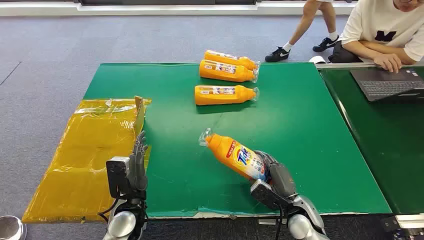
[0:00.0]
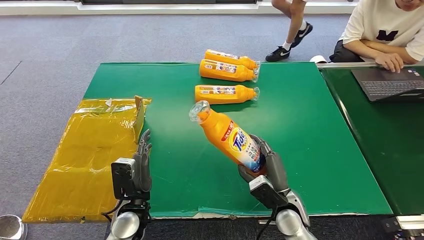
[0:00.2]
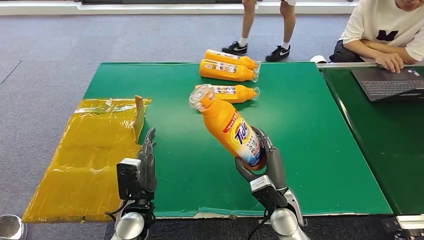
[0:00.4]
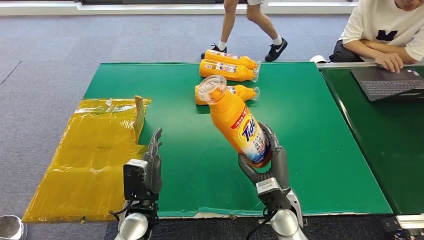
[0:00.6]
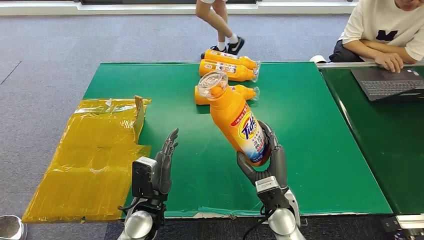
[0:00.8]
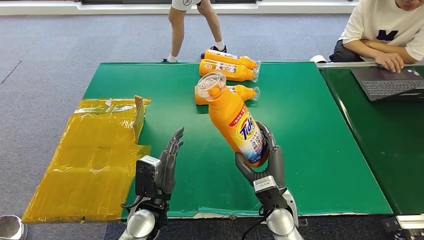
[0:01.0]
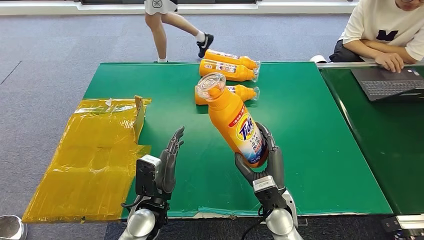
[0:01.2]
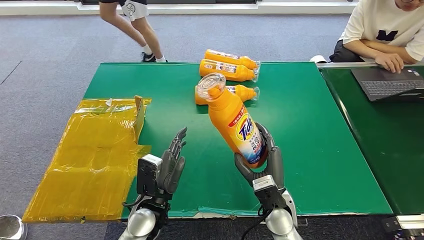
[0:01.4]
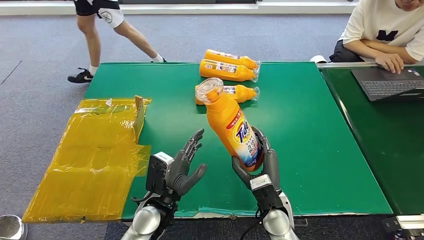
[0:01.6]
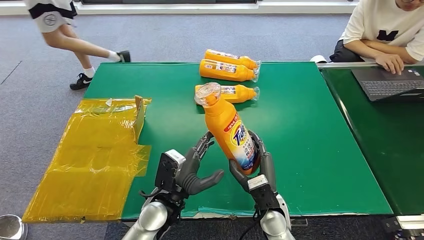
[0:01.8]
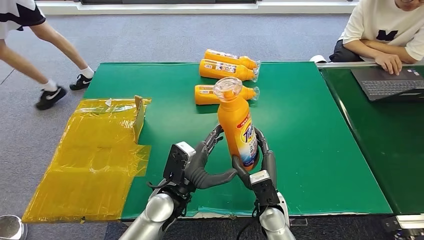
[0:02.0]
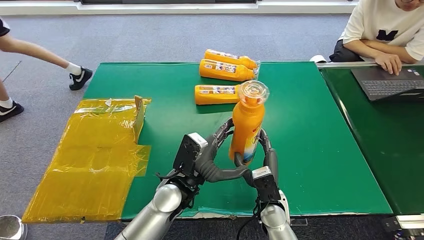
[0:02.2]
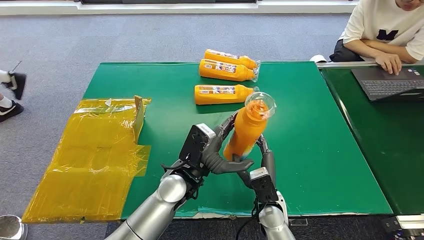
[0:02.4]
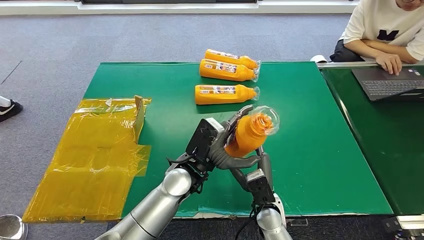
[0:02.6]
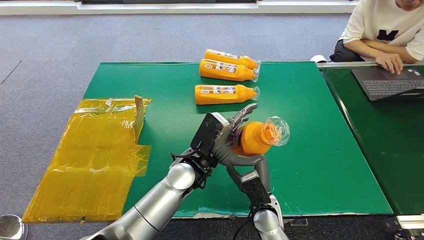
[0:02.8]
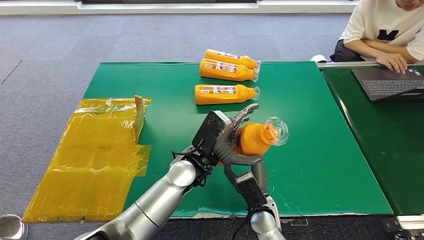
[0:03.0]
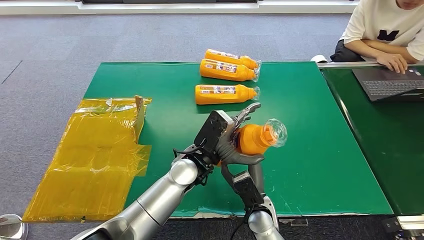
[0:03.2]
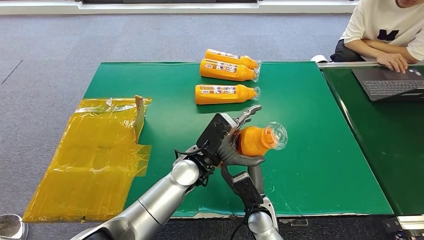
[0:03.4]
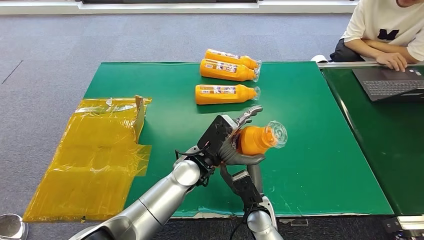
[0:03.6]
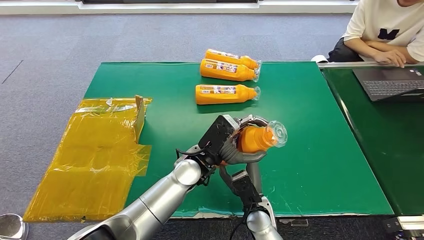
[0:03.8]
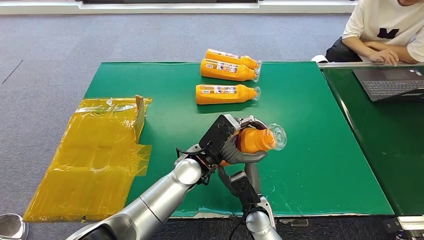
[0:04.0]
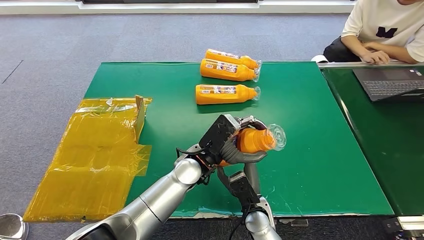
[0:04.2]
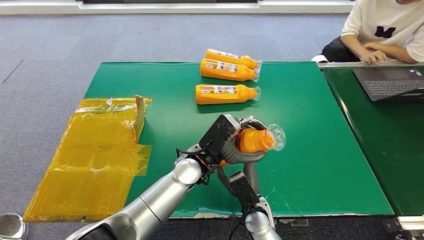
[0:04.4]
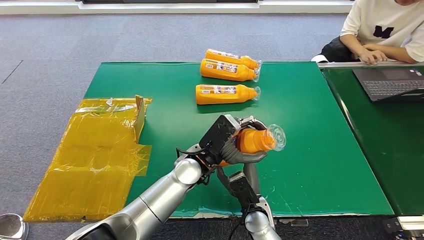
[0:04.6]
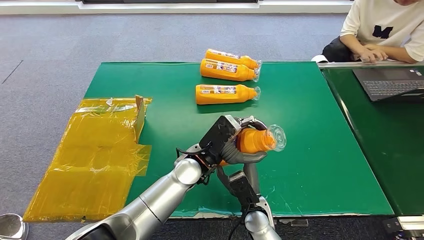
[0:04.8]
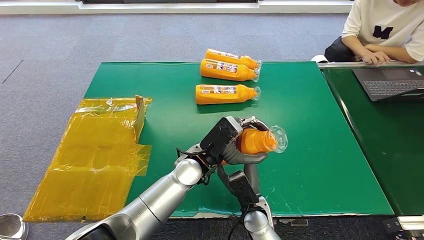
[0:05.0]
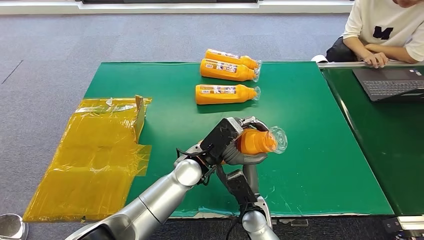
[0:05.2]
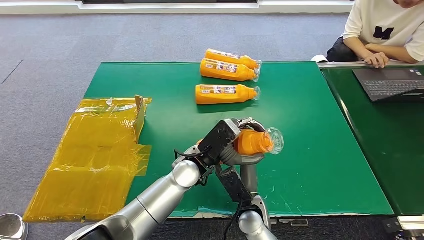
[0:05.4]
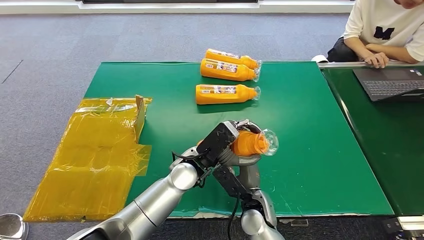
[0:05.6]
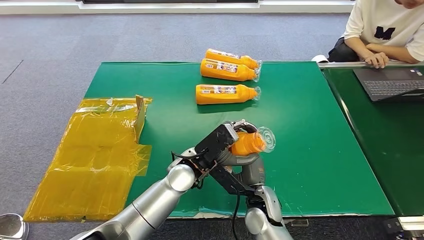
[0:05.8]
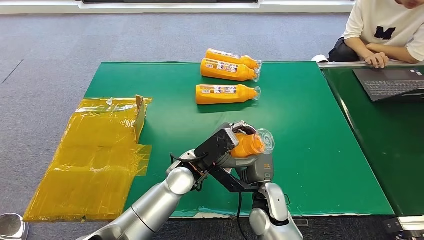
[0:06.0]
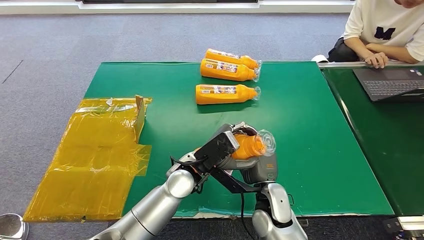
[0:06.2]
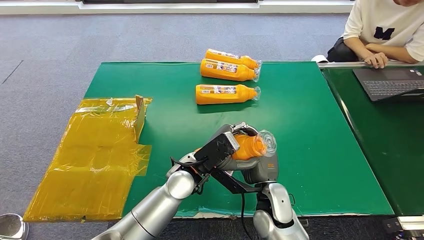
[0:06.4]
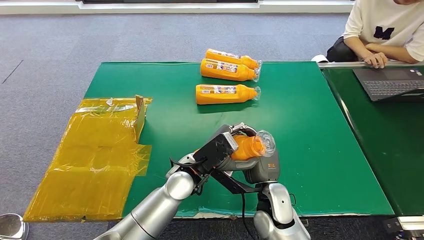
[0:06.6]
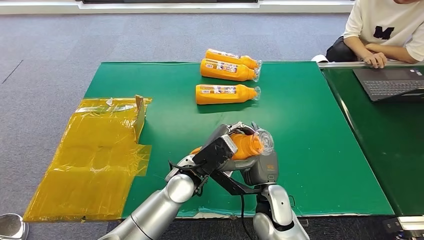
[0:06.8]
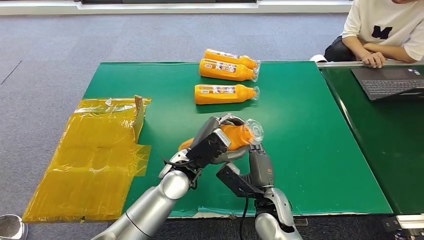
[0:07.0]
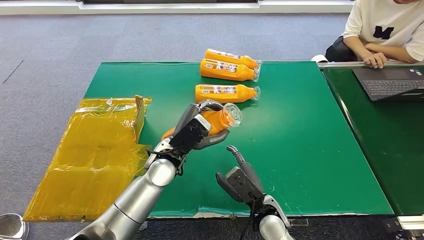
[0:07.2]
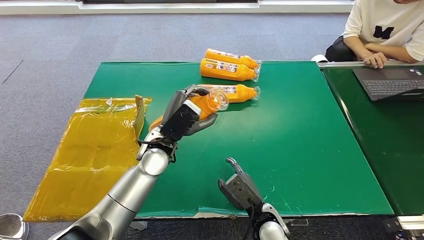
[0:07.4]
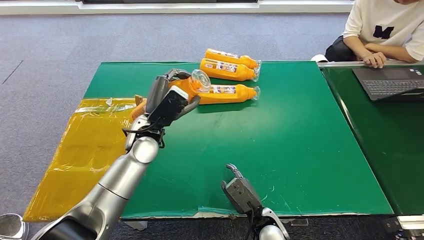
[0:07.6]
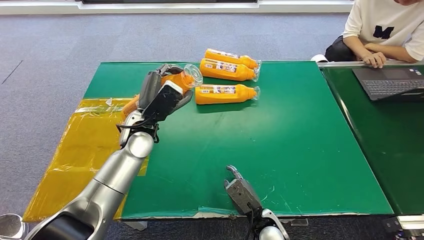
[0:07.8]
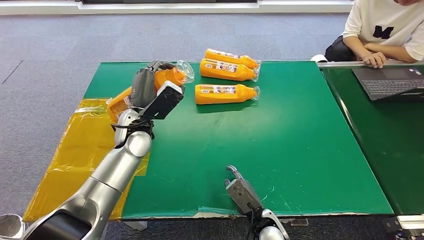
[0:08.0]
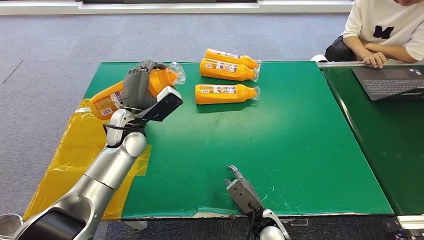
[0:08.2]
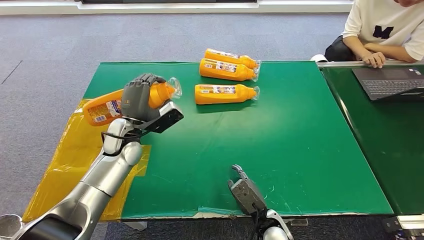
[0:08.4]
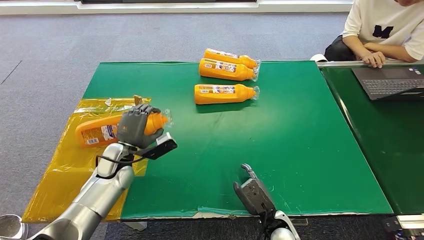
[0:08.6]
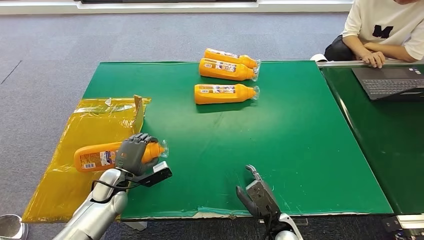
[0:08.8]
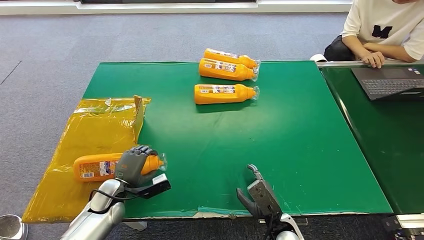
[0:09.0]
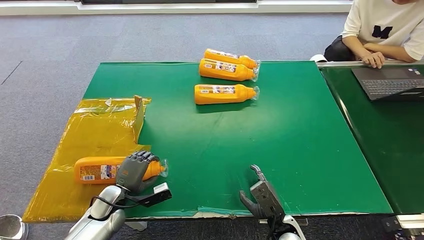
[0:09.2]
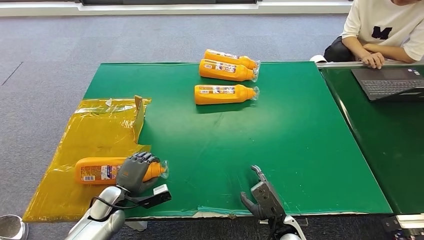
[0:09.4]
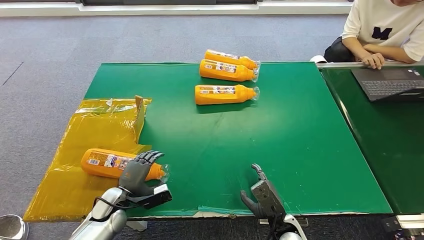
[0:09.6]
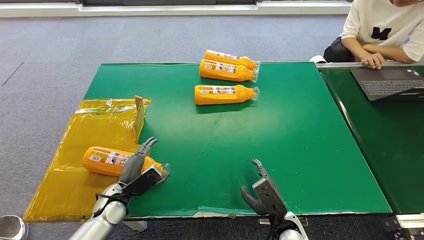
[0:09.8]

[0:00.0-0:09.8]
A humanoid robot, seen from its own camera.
Step, 0:00.0 to 0:01.6: Pick up the bottle from the table.
Step, 0:01.8 to 0:09.8: Turn the bottle to the front side.
0:01.4 to 0:02.8: The right hand shifts by approximately 5 cm. The left hand is displaced to the right, upward and forward by about 15 cm.
0:02.8 to 0:04.2: The hands stay close to where they were, moving slightly.
0:07.0 to 0:08.4: The right hand shifts roughly 5 cm downward. The left hand travels to the left and forward by some 20 cm.
